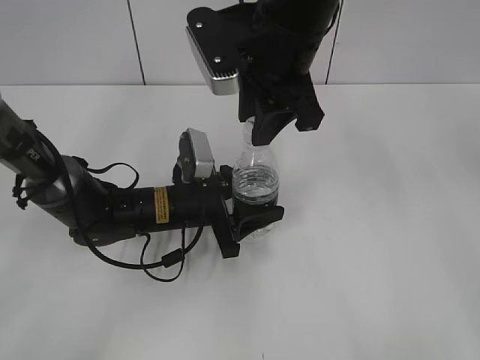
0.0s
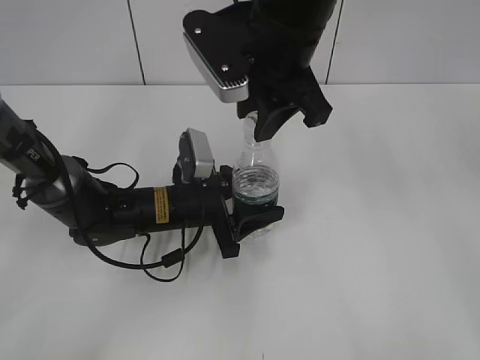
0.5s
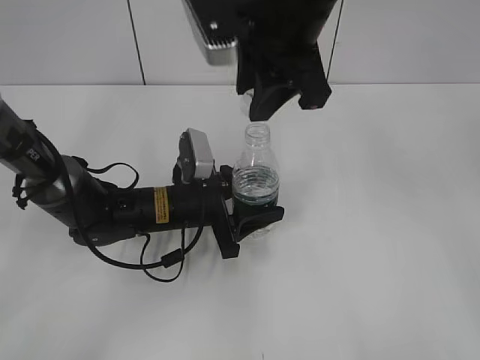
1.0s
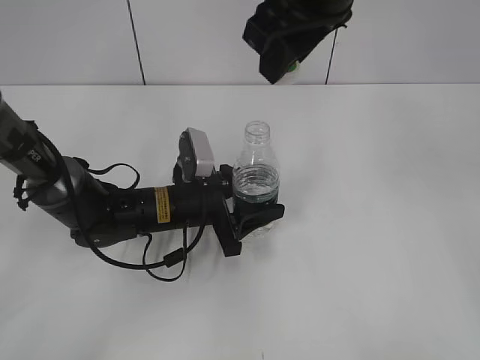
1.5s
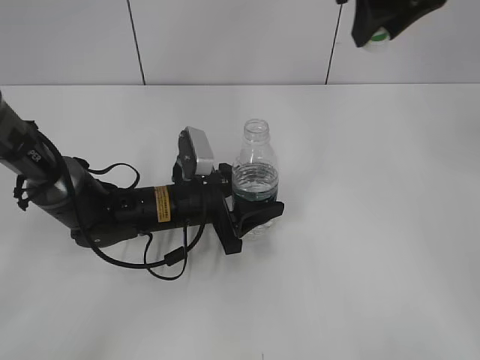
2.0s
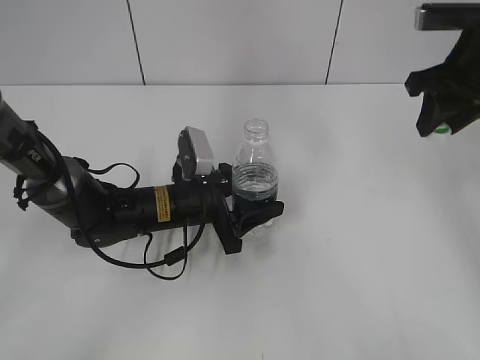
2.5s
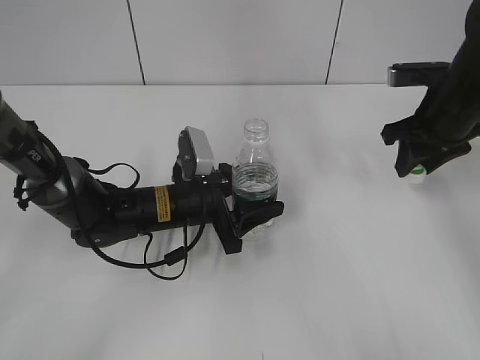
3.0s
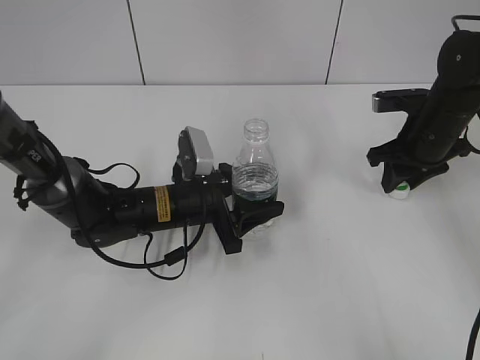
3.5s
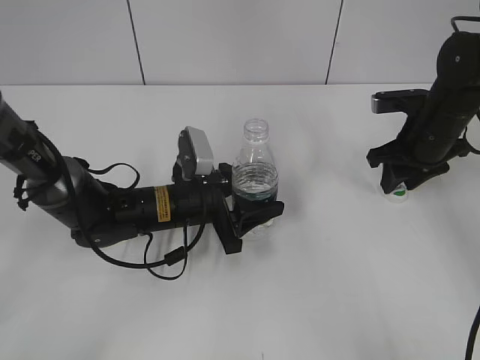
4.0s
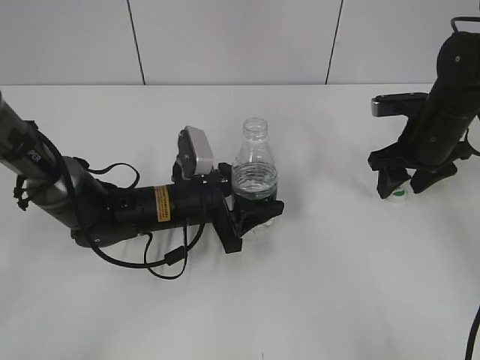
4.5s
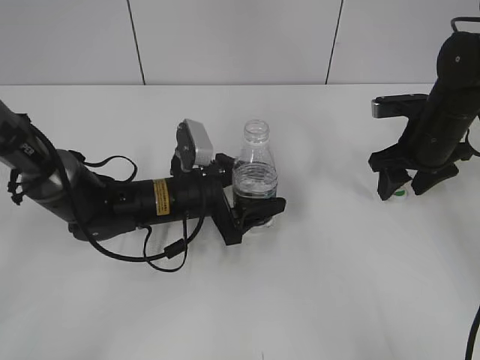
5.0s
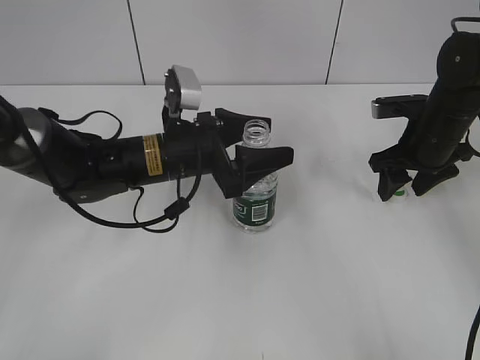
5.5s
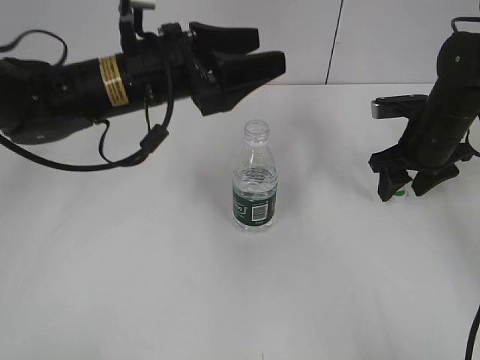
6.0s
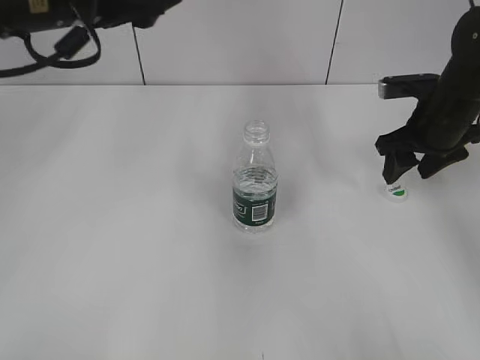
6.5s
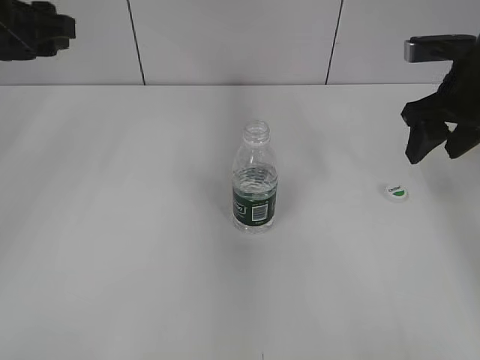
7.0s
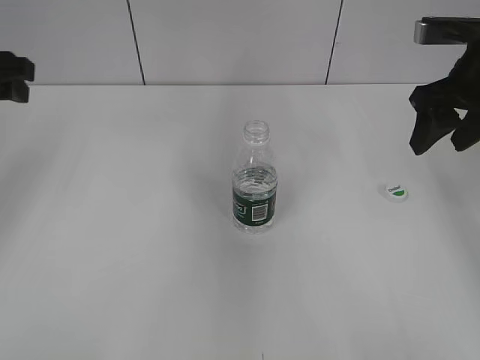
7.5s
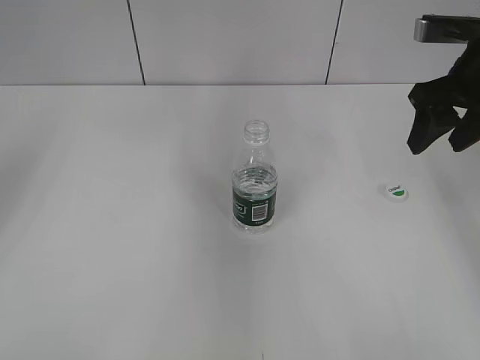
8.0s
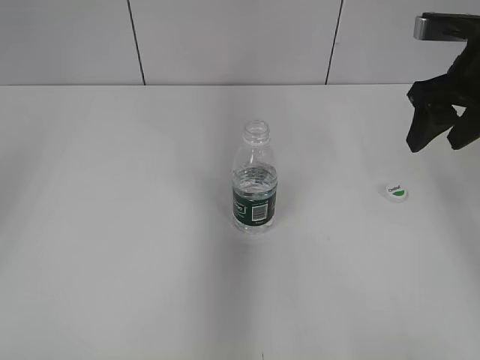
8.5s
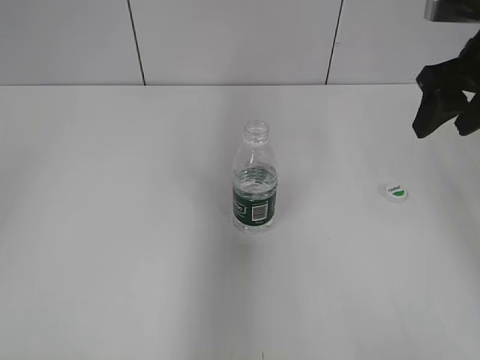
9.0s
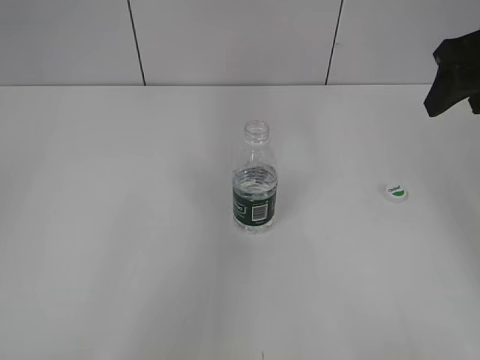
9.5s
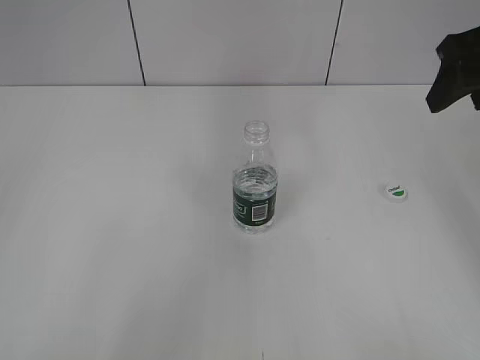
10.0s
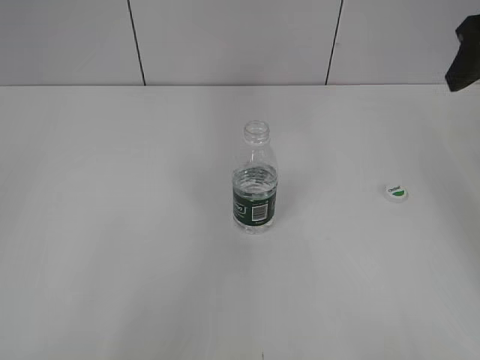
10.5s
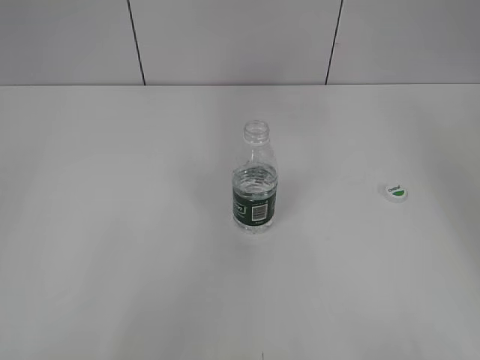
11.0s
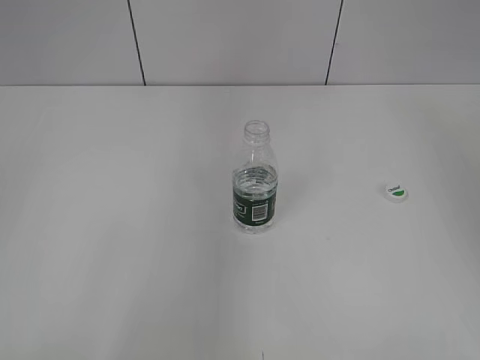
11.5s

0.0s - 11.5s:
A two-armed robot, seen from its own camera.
Step, 1.0s - 4.0s: Place the bottle cap on the table with the right gripper.
Step, 4.5s - 5.0s: Place the bottle on the table with the left gripper.
0.0s - 2.0s: The right gripper goes about 15 cm to the right and upward.
2.0s - 4.0s: The right gripper is displaced downward and to the right by approximately 25 cm.
4.0s - 6.0s: The right gripper opens its fingers. Meanwhile the left gripper moves upward, roughly 15 cm, and opens.
6.0s - 7.5s: The right gripper travels upward by approximately 15 cm. Meanwhile the left gripper is displaced to the left by about 20 cm.
7.5s - 9.5s: The left gripper goes some 35 cm backward; the right gripper shifts about 5 cm upward.
9.5s - 11.5s: The right gripper shifts some 15 cm upward and backward.

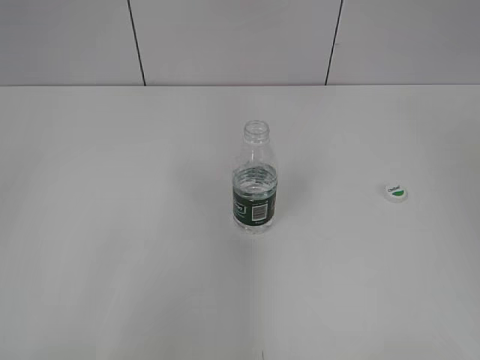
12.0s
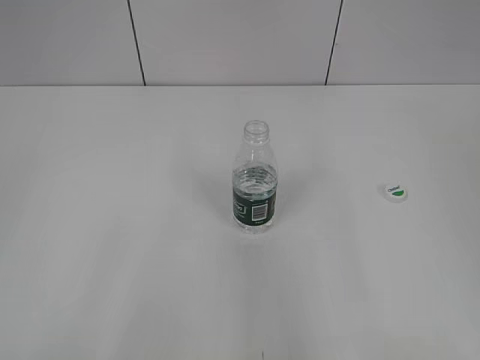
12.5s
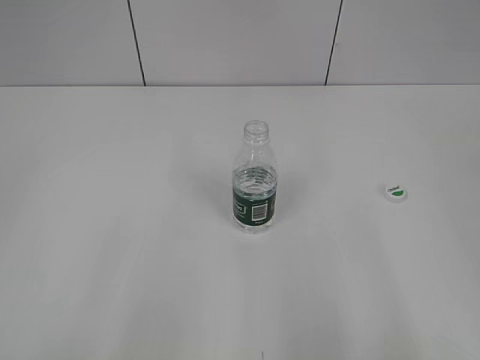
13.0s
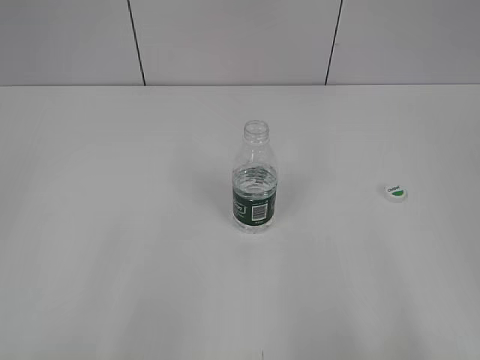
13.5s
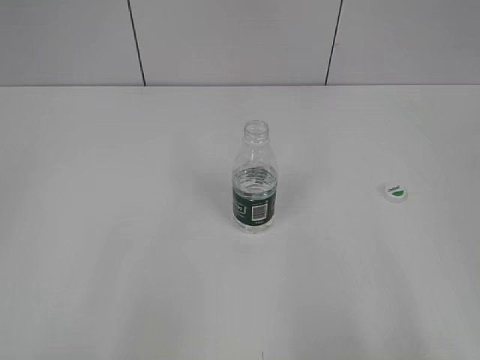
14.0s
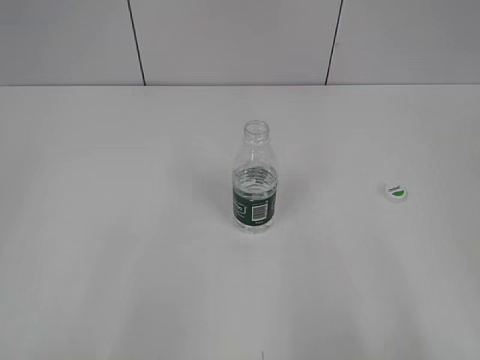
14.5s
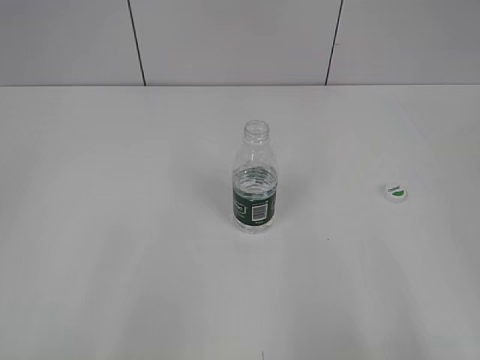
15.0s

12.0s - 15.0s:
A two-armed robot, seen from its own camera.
12.0s - 13.5s: The right gripper goes about 15 cm downward and backward.

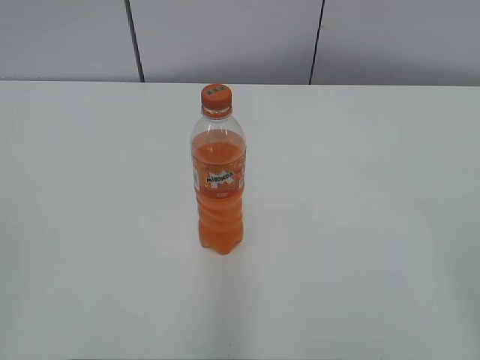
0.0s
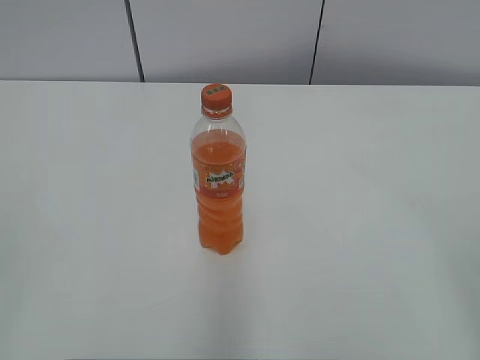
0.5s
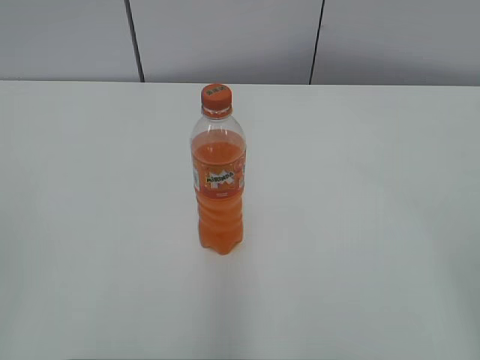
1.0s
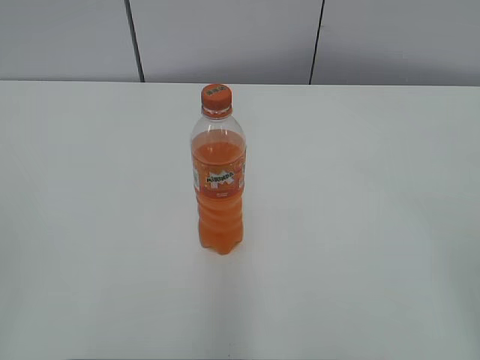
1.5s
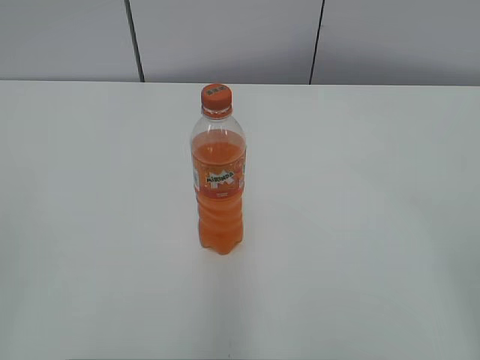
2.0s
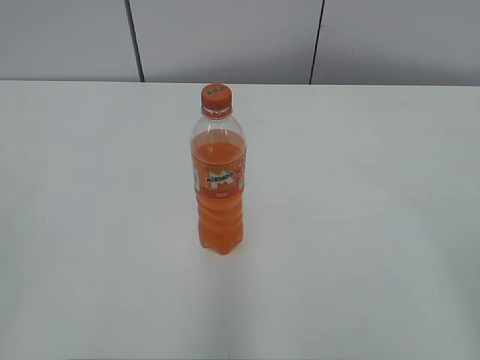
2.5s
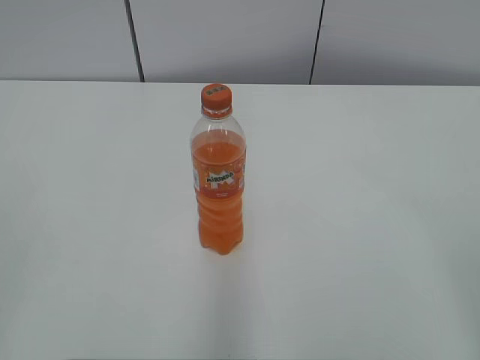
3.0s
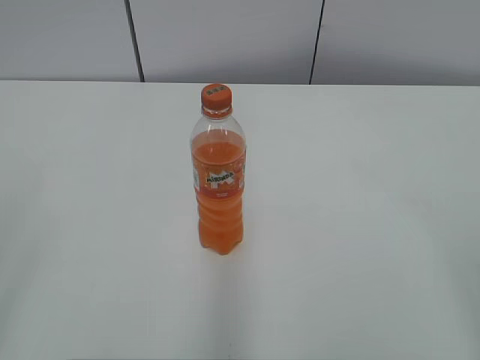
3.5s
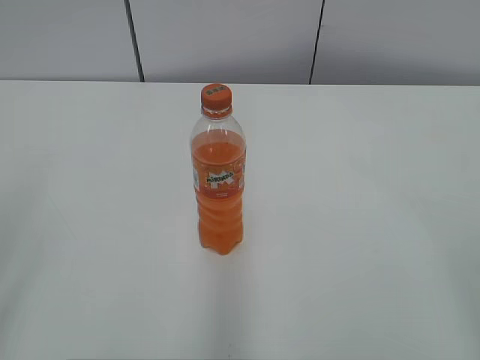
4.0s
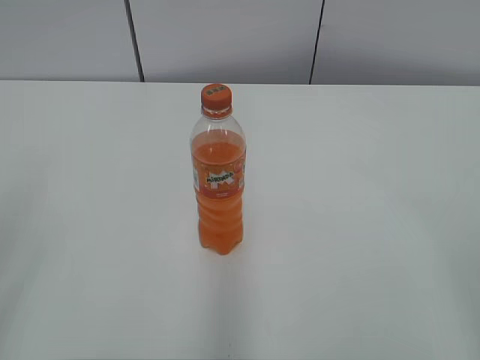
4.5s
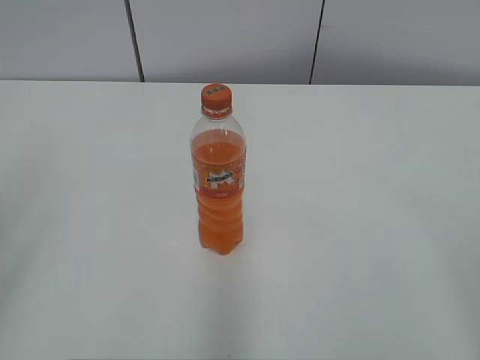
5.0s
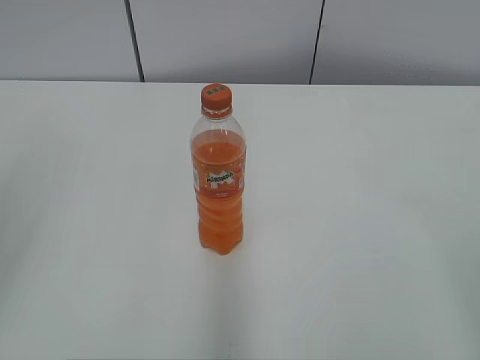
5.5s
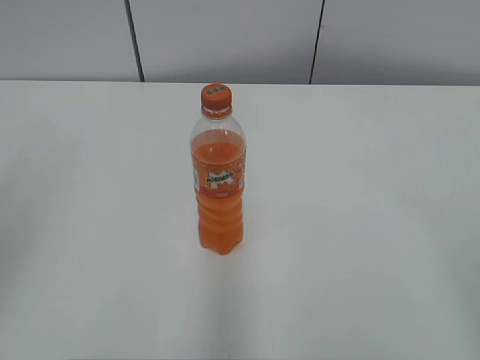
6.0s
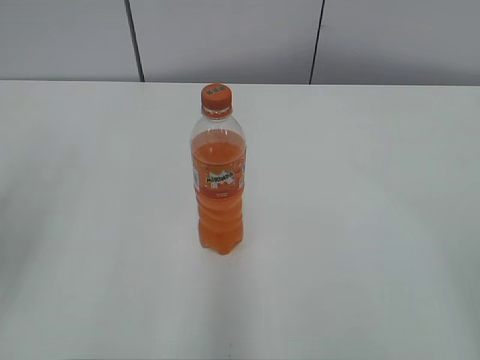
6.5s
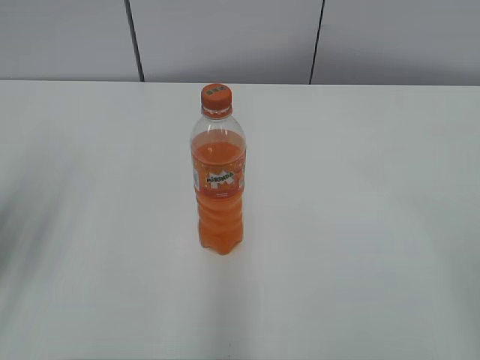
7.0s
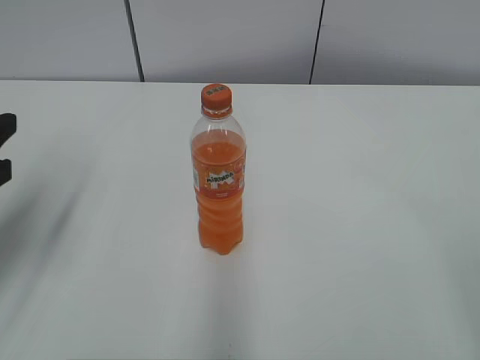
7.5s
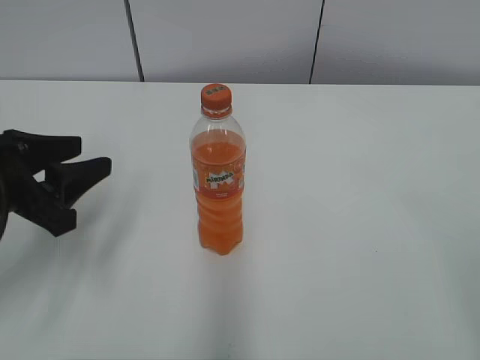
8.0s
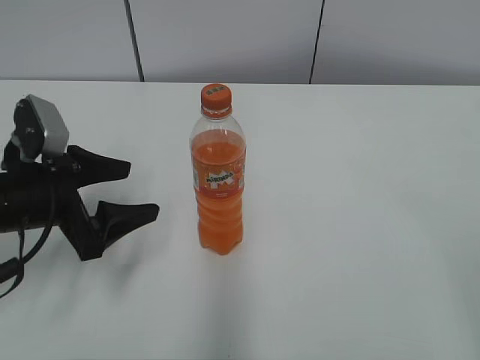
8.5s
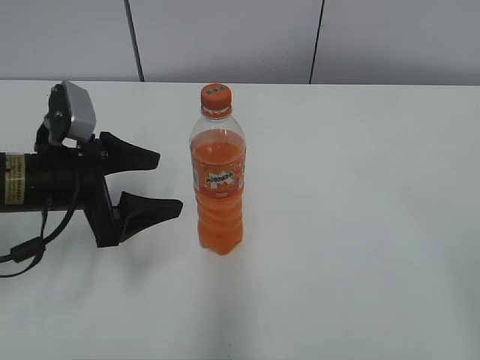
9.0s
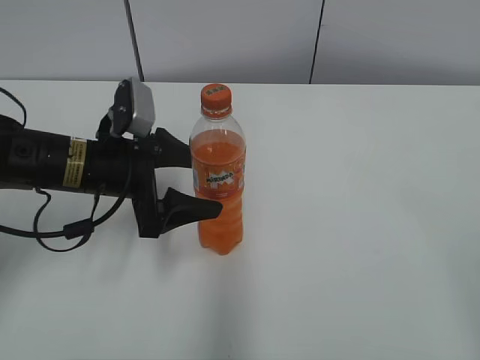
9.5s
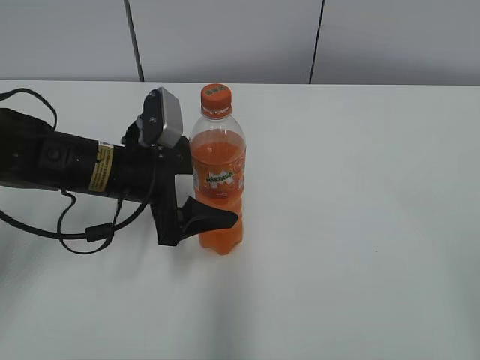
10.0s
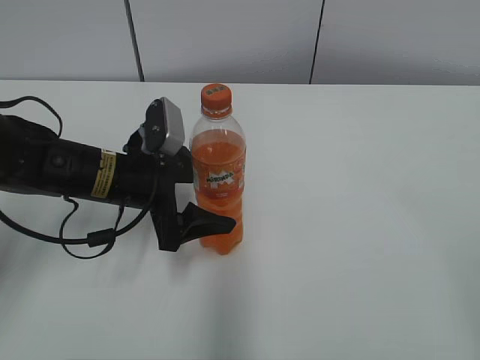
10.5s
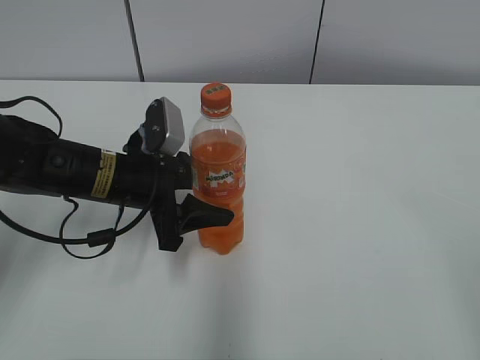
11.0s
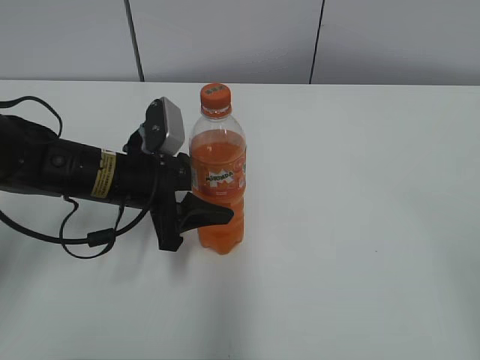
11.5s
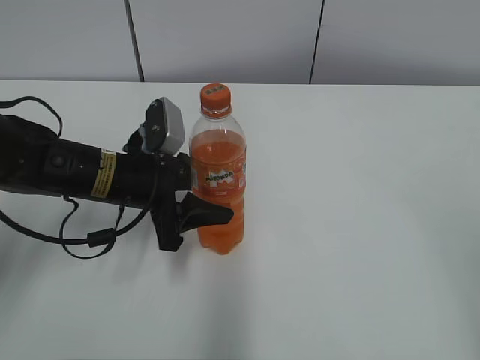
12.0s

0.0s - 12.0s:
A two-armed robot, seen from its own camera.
Step, 0.0s - 11.0s: Grab the Mirinda with the left hand.
6.0s - 8.0s: The left gripper shifts roughly 20 cm downward and forward.
8.0s - 10.0s: The left gripper travels to the right and forward by some 15 cm, and opens its fingers.
10.0s - 12.0s: The left gripper closes.
